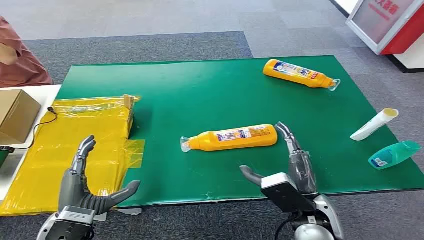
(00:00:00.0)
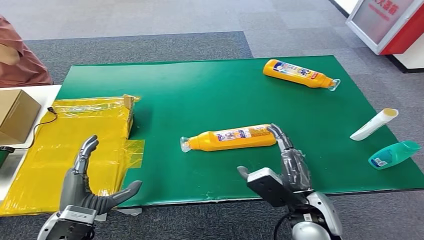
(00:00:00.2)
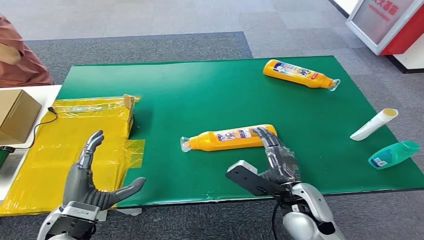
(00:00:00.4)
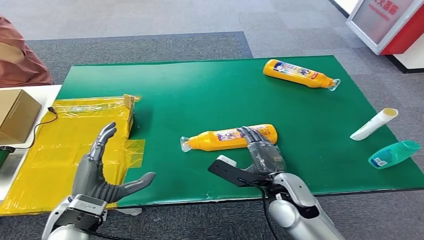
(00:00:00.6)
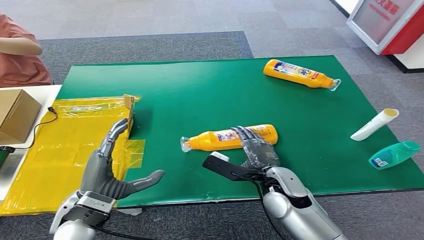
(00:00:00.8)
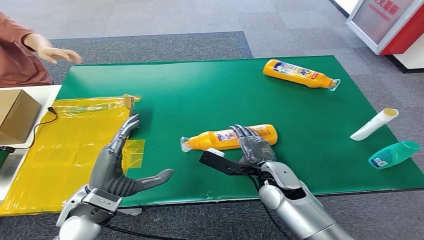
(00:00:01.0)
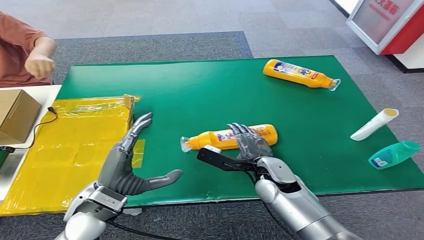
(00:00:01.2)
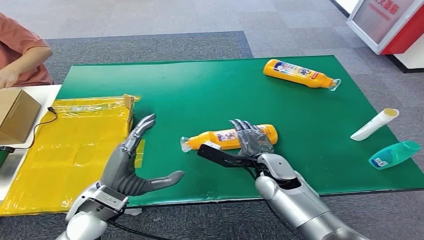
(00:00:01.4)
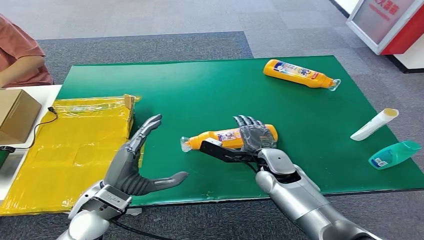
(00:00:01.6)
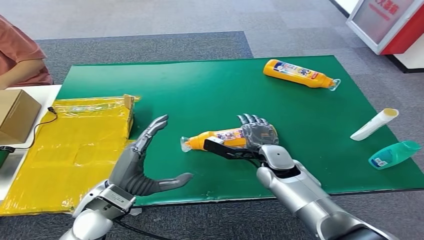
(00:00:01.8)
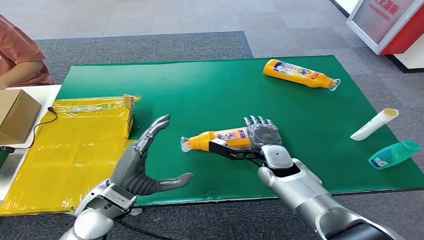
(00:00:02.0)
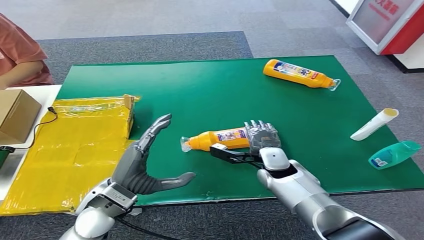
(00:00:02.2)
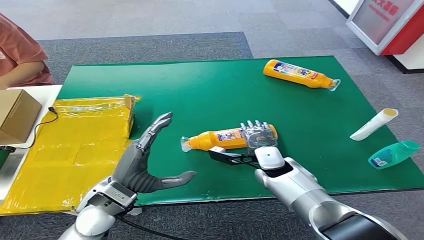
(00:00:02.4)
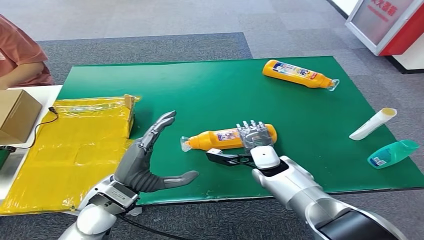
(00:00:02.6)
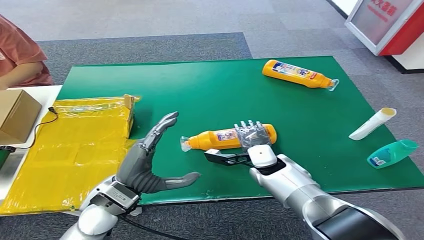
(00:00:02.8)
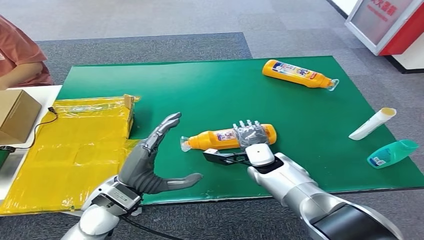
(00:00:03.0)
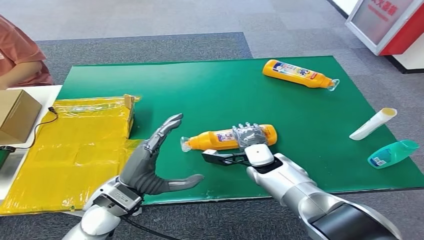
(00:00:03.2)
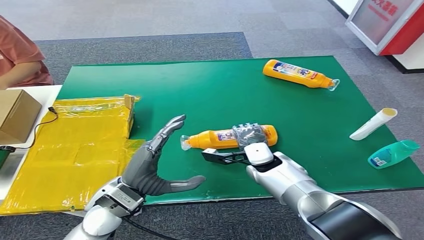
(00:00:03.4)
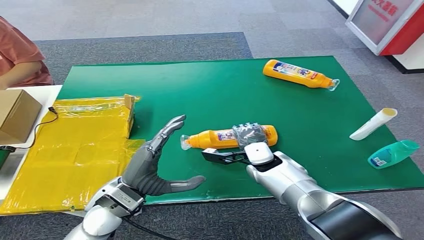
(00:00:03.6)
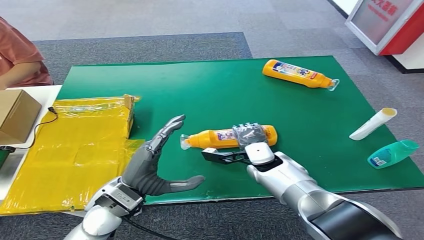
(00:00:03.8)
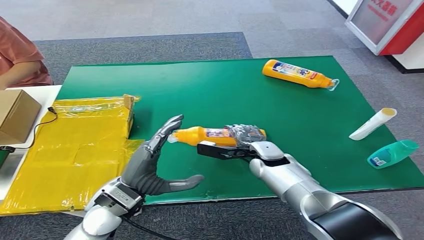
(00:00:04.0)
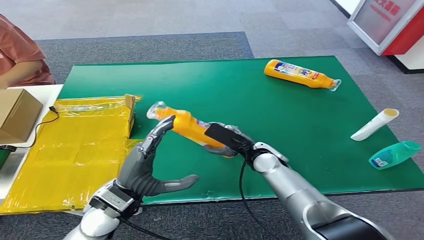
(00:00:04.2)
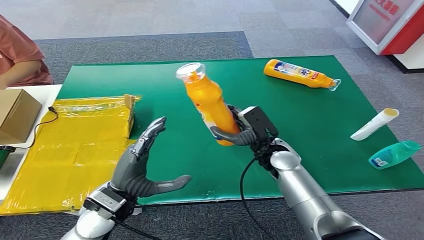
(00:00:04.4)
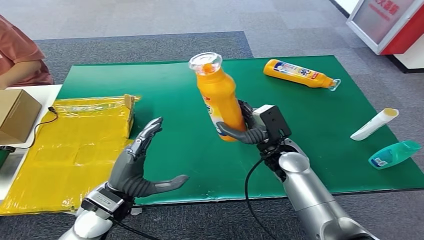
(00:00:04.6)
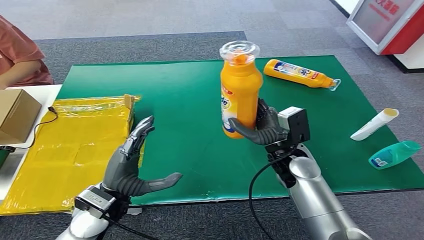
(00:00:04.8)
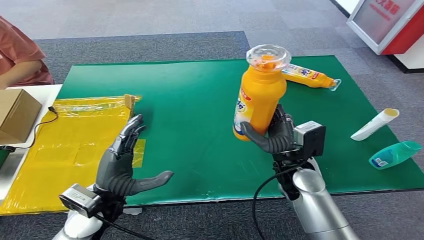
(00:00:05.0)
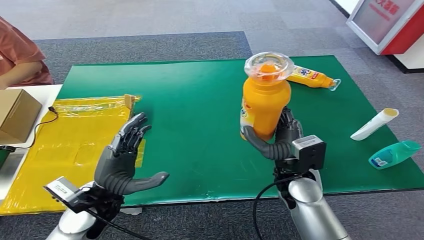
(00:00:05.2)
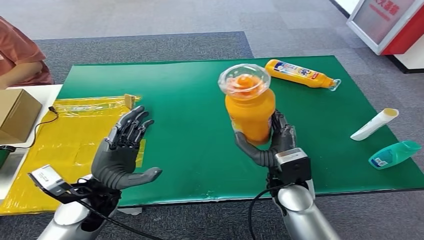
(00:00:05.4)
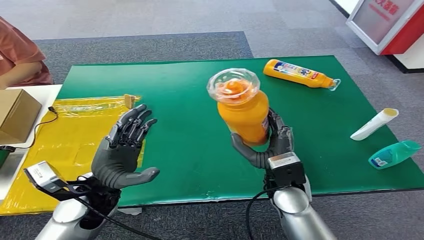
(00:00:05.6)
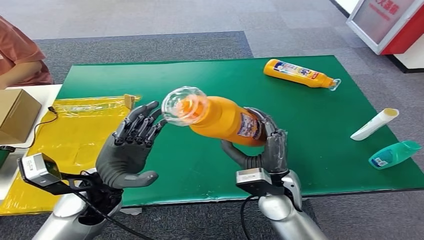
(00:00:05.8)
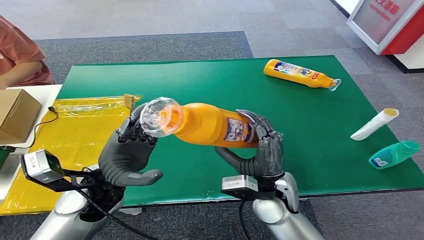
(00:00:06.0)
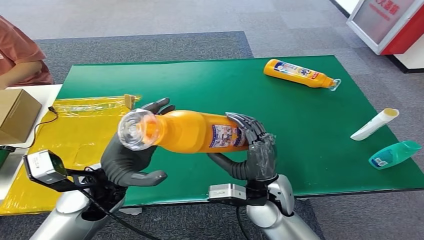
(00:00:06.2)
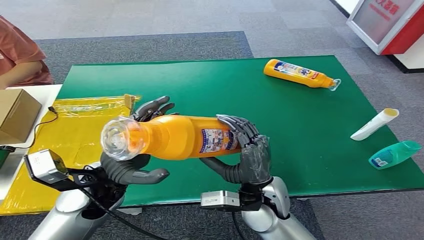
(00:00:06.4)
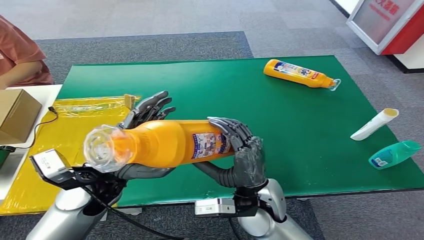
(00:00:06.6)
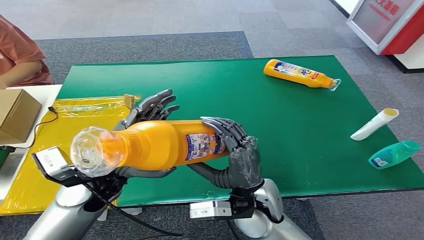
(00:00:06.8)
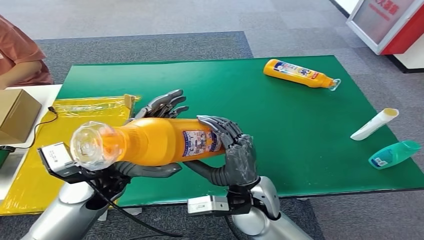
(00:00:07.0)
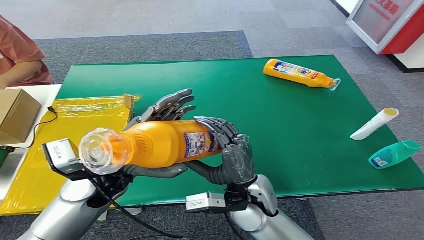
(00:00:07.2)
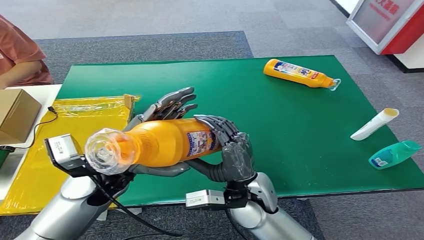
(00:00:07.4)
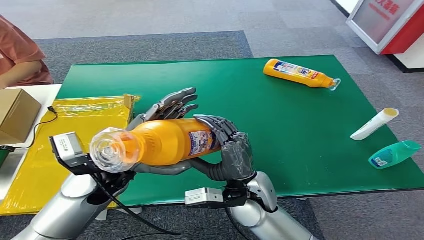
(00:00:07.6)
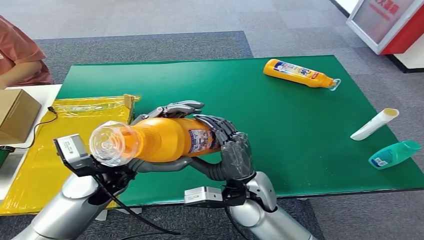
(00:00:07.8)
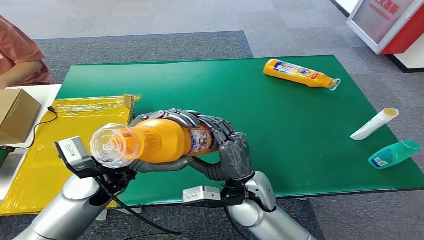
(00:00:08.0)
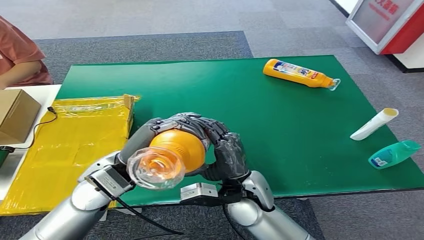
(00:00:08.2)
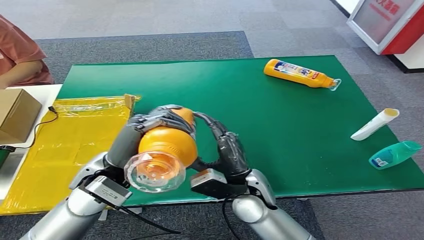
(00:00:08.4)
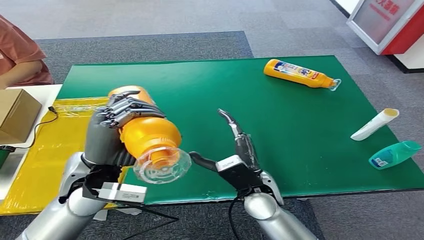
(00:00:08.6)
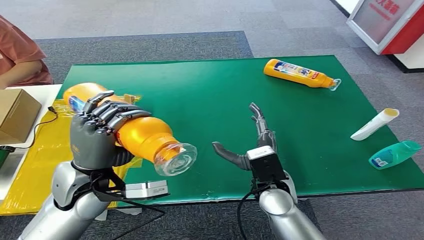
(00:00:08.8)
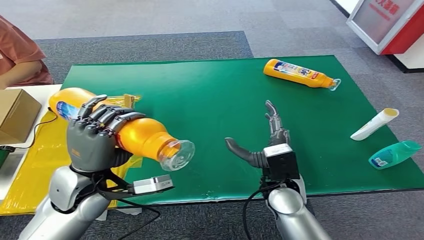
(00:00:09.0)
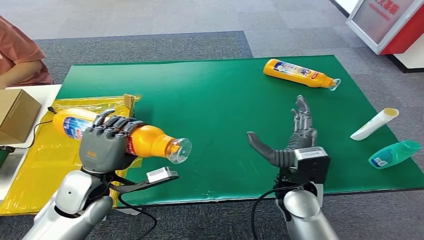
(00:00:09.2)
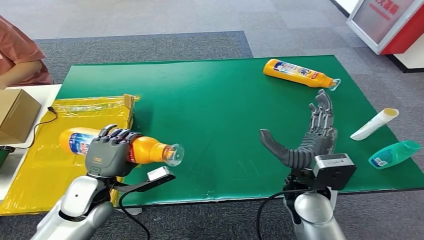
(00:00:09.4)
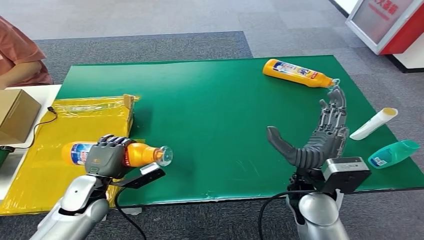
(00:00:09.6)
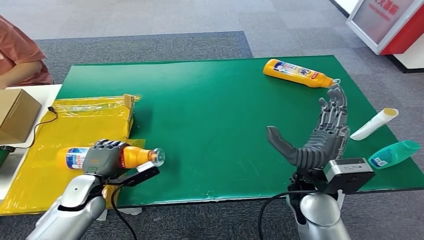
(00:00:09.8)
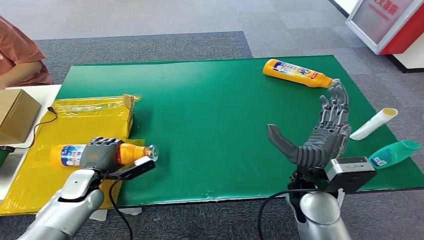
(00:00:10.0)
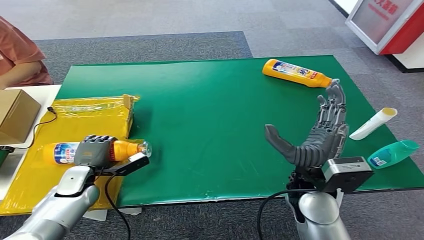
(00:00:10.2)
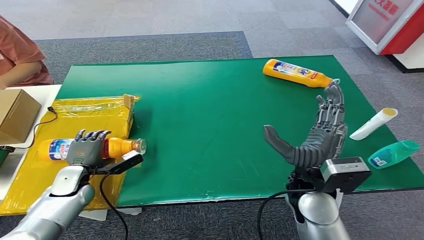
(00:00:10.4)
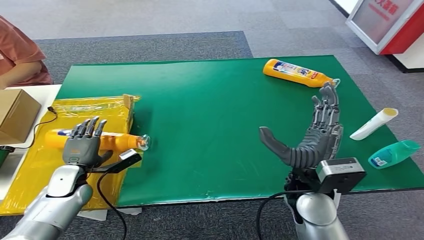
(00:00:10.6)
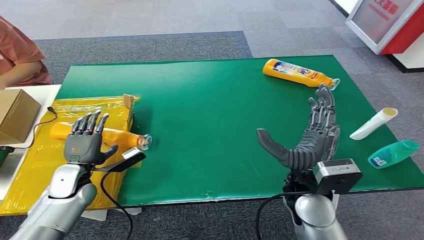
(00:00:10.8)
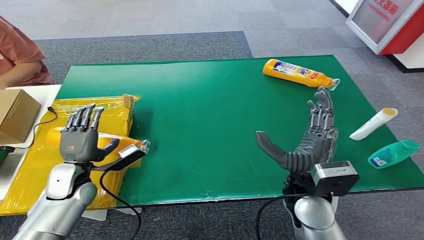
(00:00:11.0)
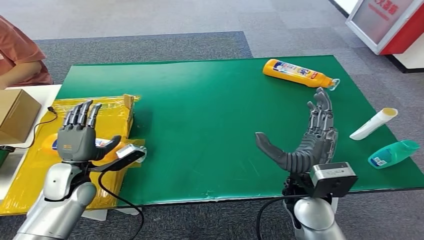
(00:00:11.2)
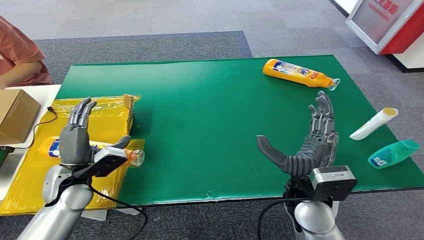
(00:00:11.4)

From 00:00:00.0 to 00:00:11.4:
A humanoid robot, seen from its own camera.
Step, from 00:00:00.0 to 00:00:05.0: Pick up the bottle from the table.
Step, from 00:00:05.2 to 00:00:11.4: Turn the bottle to the front side.
From 00:00:01.4 to 00:00:02.8: The right hand shifts by approximately 5 cm.
From 00:00:10.0 to 00:00:11.4: The left hand goes about 10 cm upward.
